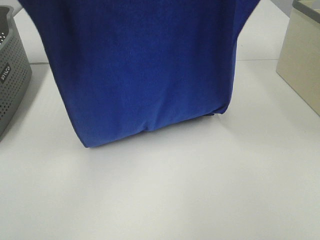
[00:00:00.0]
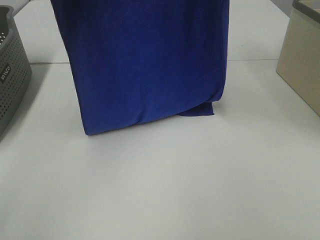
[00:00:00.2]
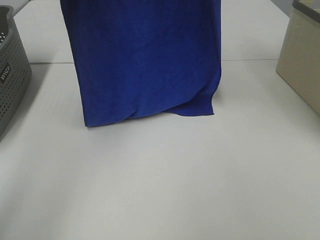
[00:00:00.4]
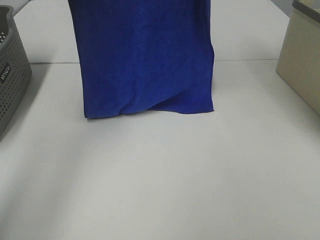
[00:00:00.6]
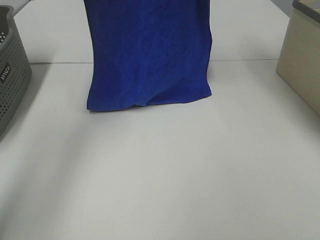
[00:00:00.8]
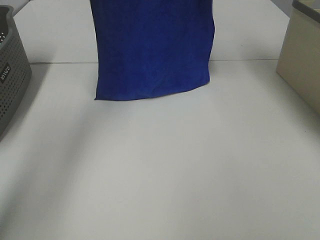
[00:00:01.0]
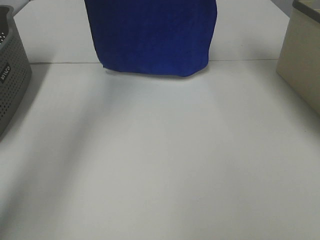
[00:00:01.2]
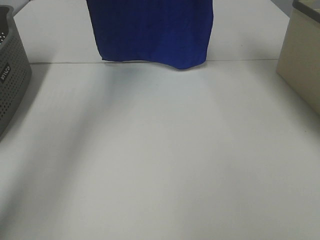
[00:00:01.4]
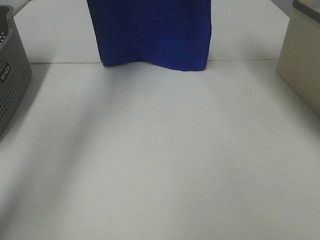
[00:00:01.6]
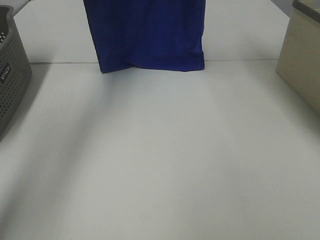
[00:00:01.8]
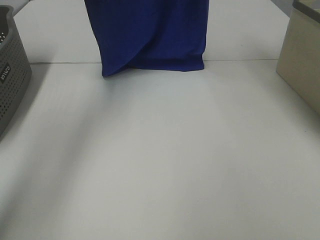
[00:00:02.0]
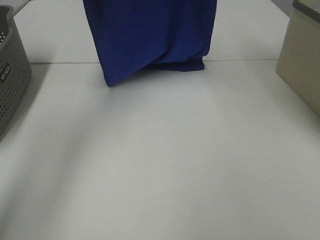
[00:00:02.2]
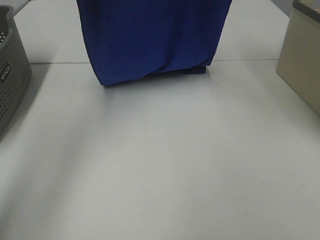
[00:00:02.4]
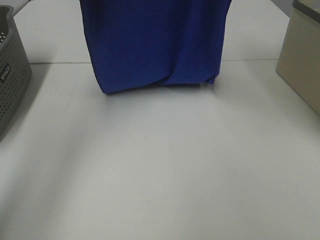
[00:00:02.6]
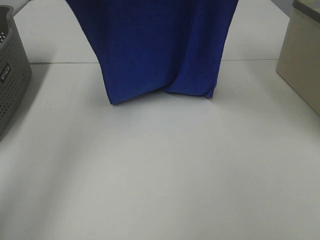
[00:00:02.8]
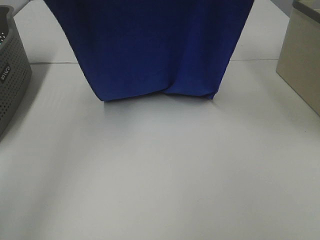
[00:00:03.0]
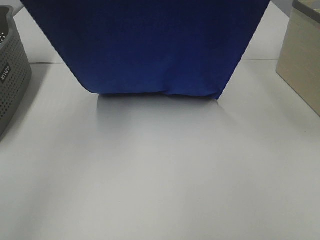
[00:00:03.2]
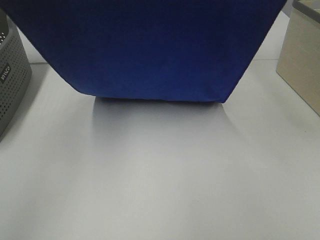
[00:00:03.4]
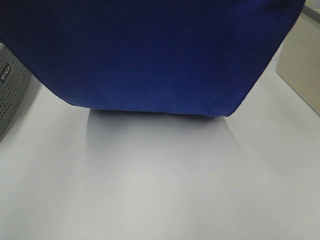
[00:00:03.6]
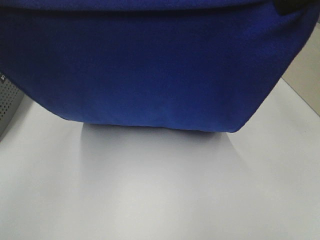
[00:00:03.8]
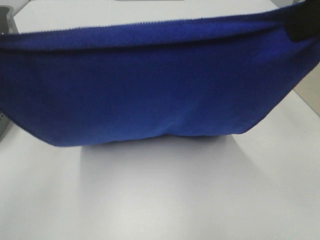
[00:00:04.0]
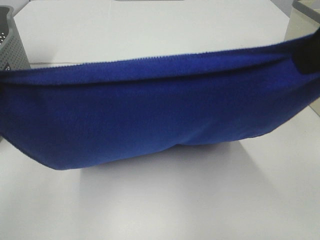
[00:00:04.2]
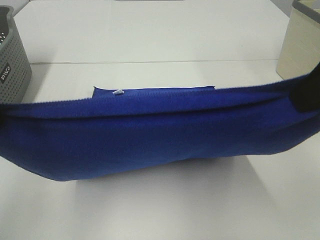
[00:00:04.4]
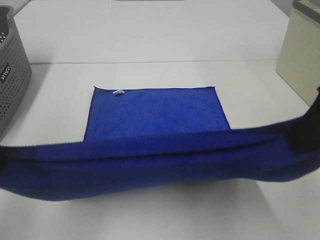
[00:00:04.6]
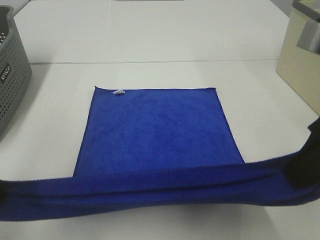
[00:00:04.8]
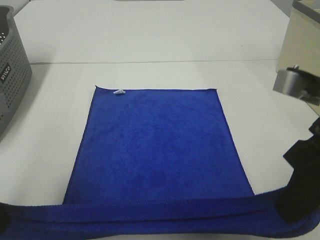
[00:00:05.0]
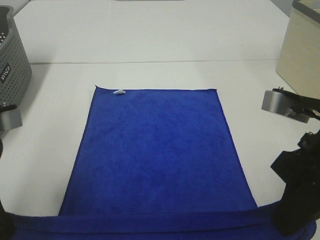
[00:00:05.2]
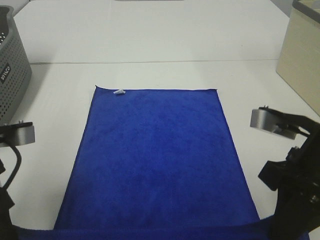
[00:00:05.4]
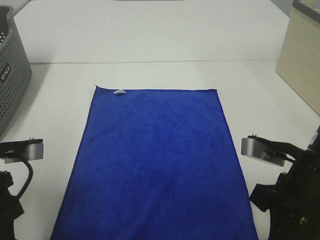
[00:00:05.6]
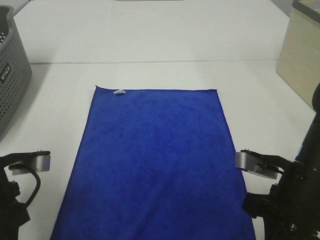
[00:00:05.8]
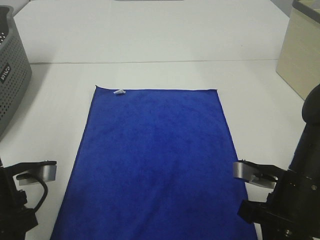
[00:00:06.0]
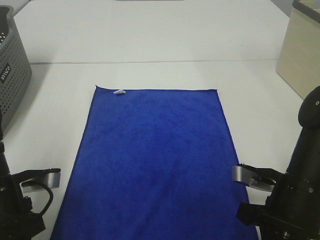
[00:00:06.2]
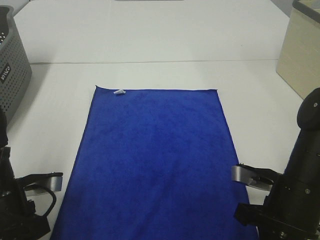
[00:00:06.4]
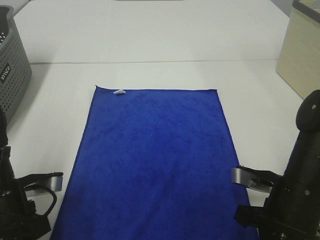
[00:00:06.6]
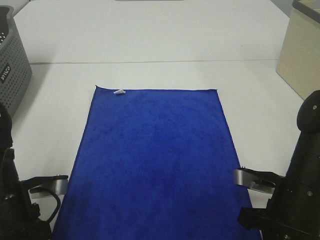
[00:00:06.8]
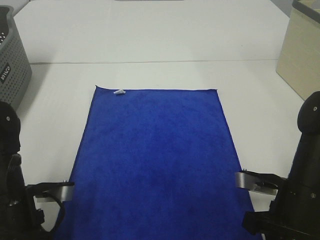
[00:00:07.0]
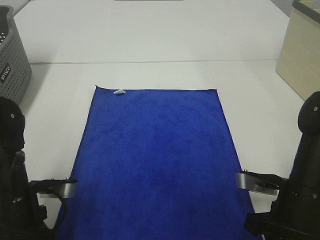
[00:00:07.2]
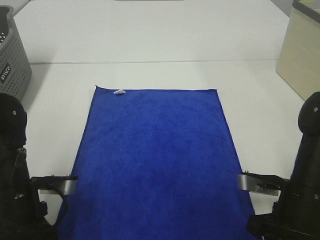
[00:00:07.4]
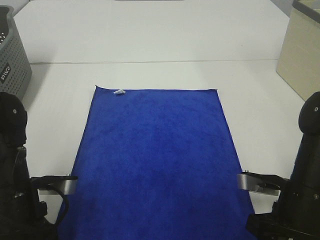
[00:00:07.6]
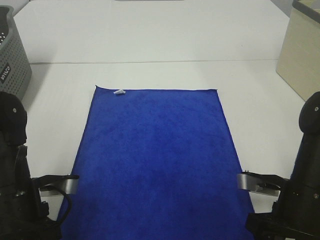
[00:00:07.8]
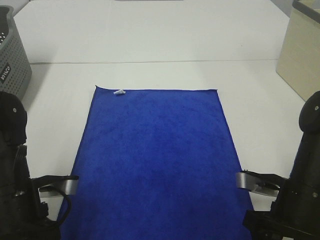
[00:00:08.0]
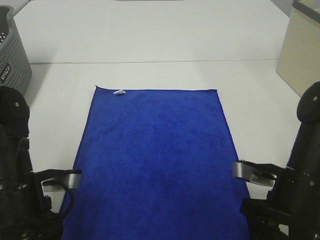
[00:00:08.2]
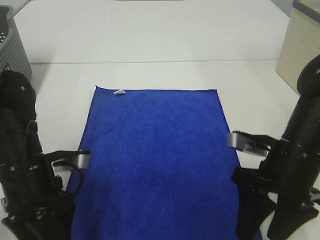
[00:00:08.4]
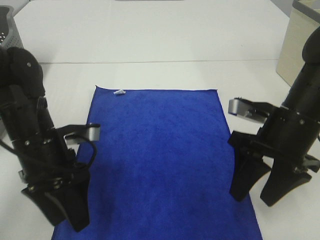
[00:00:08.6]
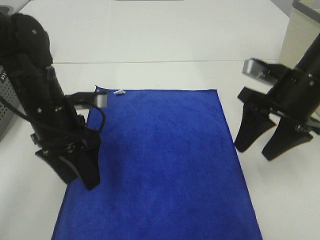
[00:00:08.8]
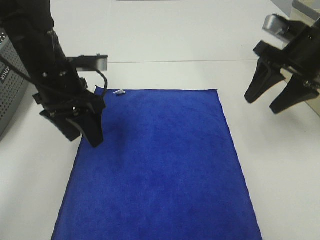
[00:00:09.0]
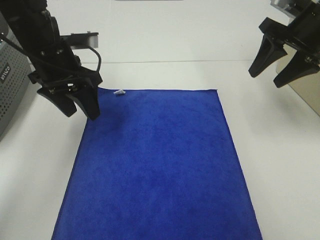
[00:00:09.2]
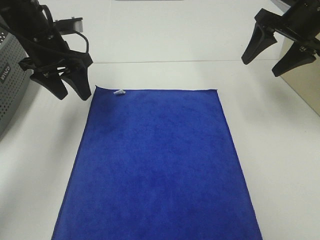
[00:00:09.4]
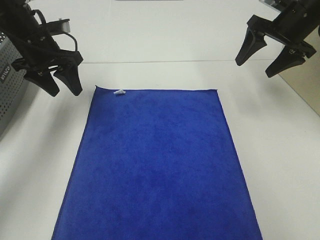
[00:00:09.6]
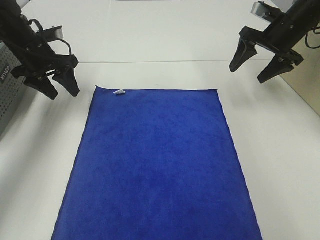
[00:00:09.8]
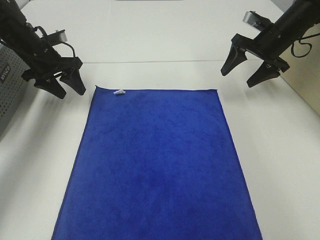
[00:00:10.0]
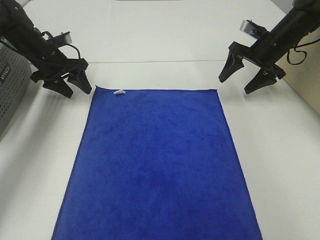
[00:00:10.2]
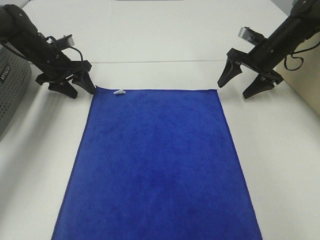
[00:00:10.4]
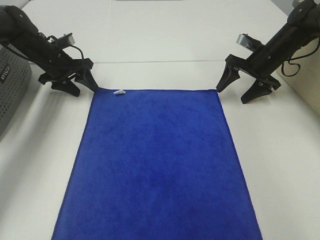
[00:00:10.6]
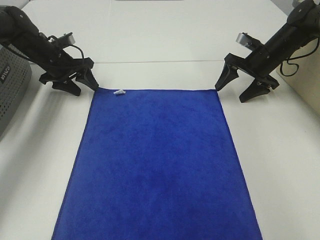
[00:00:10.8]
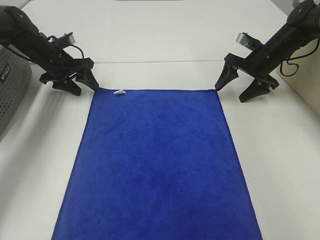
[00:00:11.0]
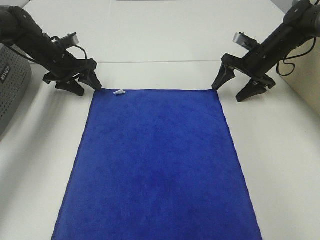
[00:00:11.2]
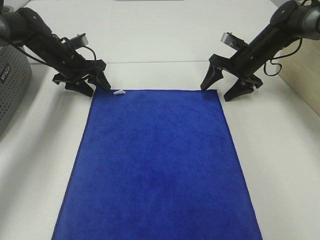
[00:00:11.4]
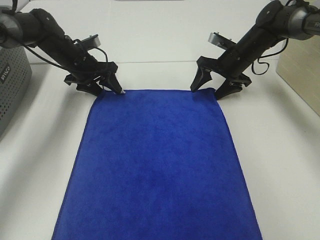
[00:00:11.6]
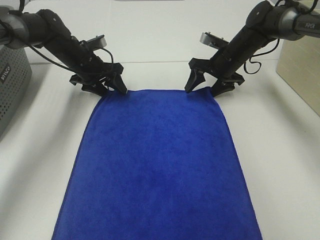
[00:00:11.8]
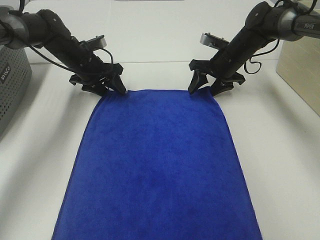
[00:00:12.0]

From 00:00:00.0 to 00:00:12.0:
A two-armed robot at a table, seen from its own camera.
Task of the whole recording: Remove the towel and place it.
Step, from 00:00:00.0 to 00:00:02.2: Left hand: spread the blue towel flat on the table.
Step, from 00:00:00.0 to 00:00:02.2: Right hand: spread the blue towel flat on the table.
Step, from 00:00:02.4 to 00:00:09.2: Left hand:adjust the blue towel.
Step, from 00:00:02.4 to 00:00:09.2: Right hand:adjust the blue towel.
From 00:00:00.0 to 00:00:01.6: Both grippers move forward, roughly 20 cm.
From 00:00:01.6 to 00:00:03.0: Both grippers move backward, approximately 15 cm.
From 00:00:03.0 to 00:00:04.4: Both grippers travel together backward and downward, approximately 20 cm.
From 00:00:04.4 to 00:00:06.0: Both grippers move downward, approximately 20 cm.
From 00:00:06.0 to 00:00:07.6: The right gripper opens up.
From 00:00:07.6 to 00:00:09.0: The grippers both shift forward and upward by some 20 cm. The left gripper opens.
From 00:00:09.0 to 00:00:10.4: The left gripper travels forward, to the left and downward by approximately 25 cm, while the right gripper travels forward and downward by roughly 20 cm.
From 00:00:10.4 to 00:00:12.0: The right gripper travels to the left by some 10 cm, while the left gripper shifts roughly 5 cm to the right.

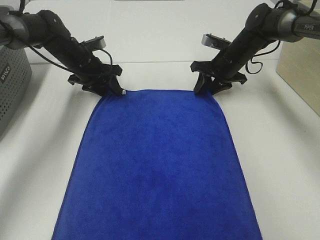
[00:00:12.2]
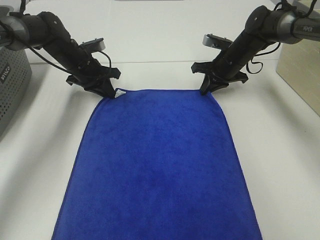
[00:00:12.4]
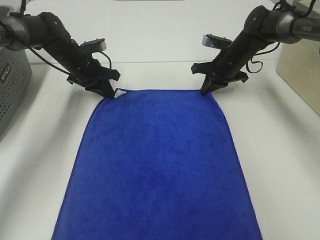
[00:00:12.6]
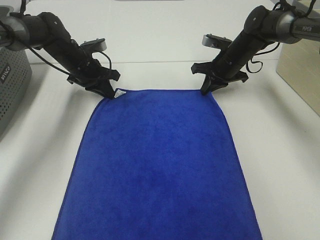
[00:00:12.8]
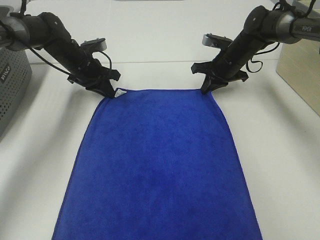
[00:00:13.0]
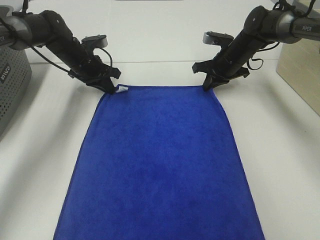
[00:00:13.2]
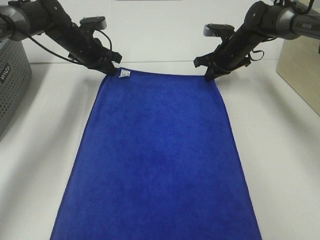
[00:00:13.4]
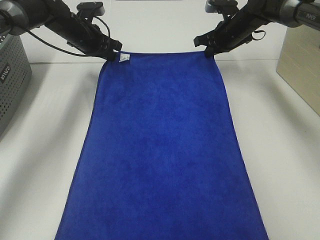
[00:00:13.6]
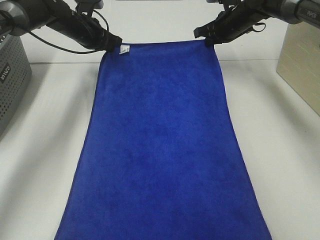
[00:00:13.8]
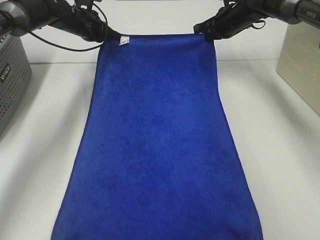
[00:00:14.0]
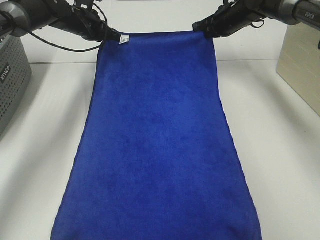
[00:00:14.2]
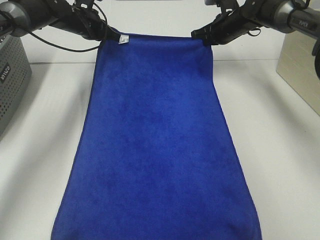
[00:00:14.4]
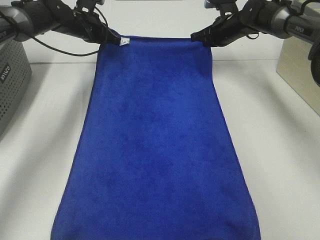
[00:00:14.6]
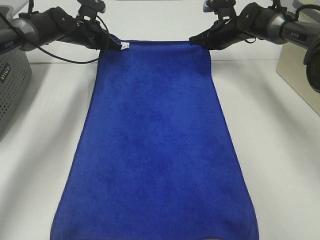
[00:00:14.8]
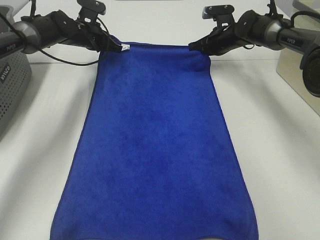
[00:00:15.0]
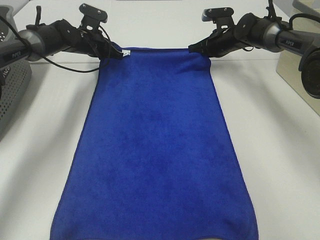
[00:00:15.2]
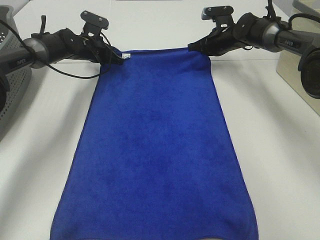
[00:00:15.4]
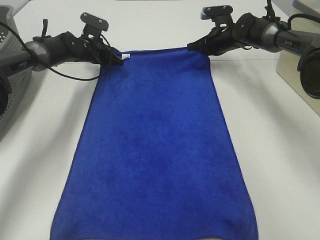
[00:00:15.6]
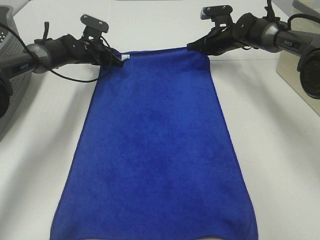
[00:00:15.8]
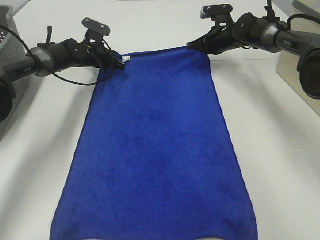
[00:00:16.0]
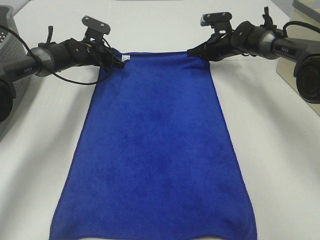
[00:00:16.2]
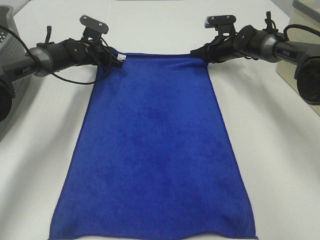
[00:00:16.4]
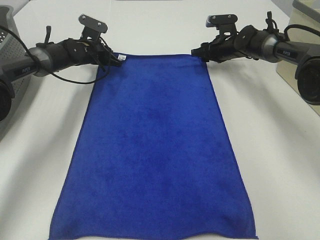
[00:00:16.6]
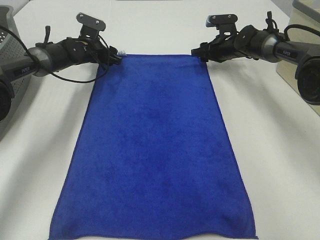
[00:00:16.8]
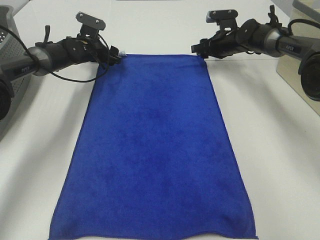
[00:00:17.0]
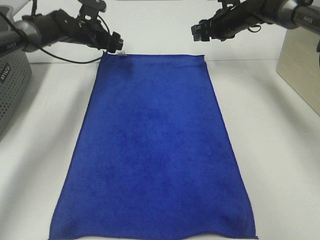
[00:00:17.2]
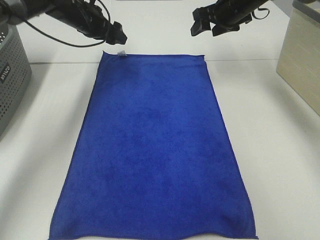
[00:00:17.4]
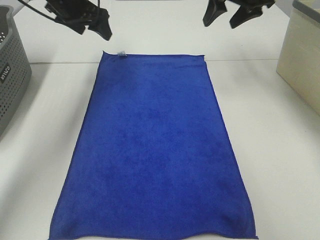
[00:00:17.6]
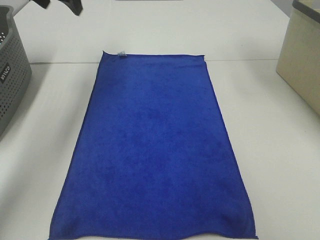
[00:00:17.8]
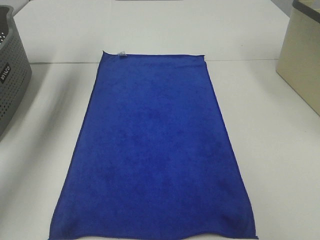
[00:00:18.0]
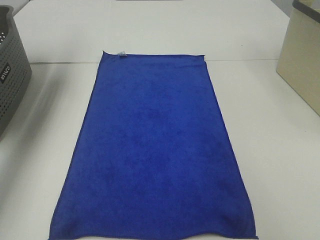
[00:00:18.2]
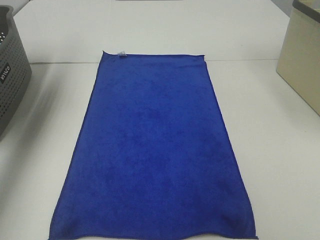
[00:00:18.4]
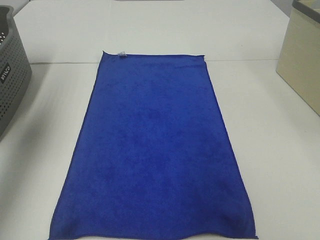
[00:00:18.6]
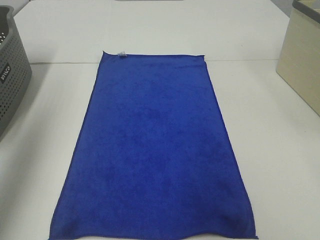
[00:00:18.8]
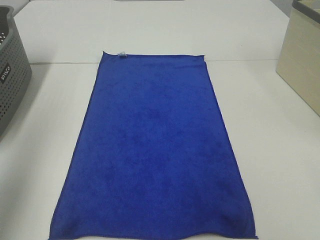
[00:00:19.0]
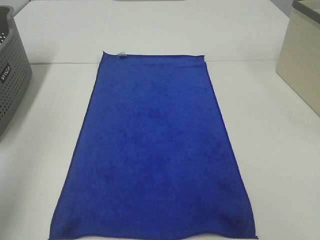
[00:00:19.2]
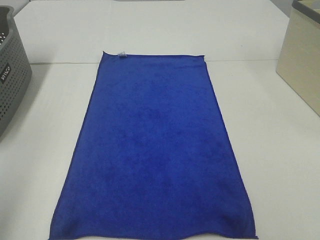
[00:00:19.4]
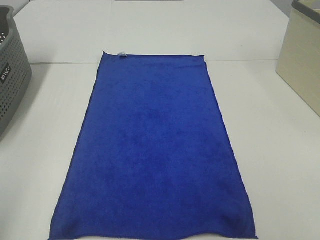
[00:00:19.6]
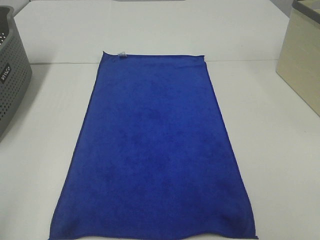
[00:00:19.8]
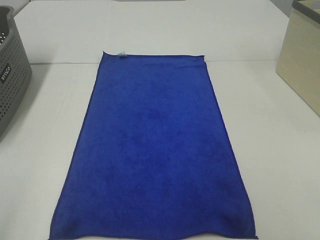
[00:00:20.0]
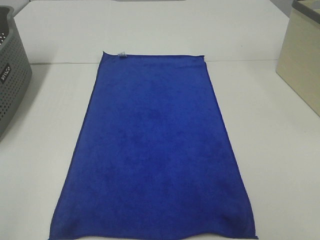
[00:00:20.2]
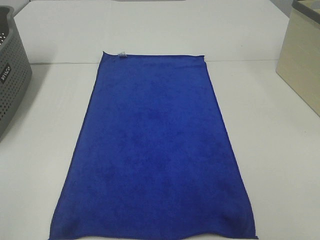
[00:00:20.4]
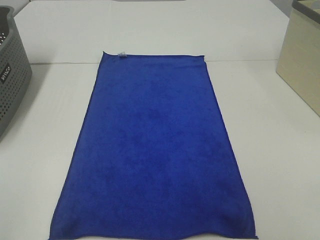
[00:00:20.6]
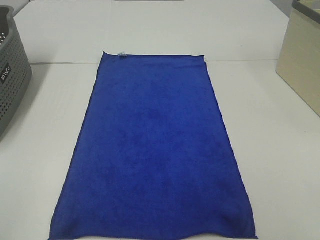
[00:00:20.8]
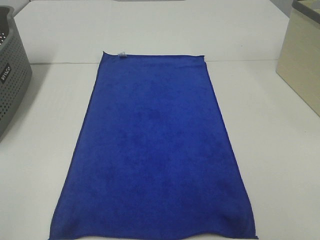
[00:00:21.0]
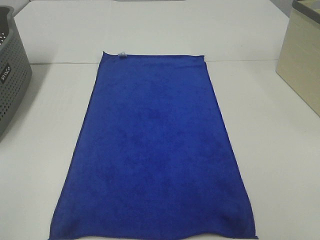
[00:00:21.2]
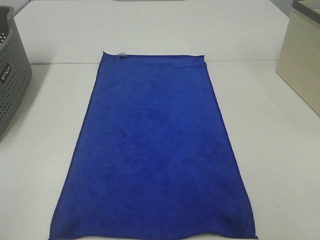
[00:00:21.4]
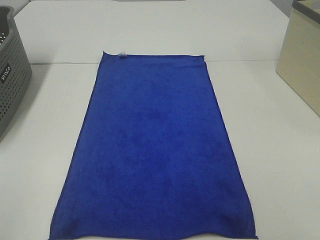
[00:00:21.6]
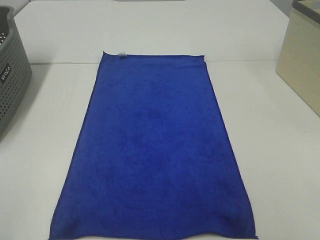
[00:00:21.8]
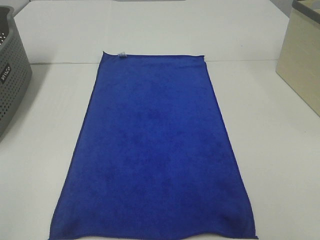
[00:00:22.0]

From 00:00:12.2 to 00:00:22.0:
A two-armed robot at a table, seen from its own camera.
Task of the whole recording: Remove the towel and place it.
From 00:00:12.2 to 00:00:13.6: Both grippers travel together upward, roughly 5 cm. The left gripper closes. The right gripper closes up.
From 00:00:13.6 to 00:00:15.0: The right gripper shifts by about 5 cm.
From 00:00:15.0 to 00:00:16.4: The left gripper travels downward by about 5 cm. The right gripper opens its fingers.
From 00:00:16.4 to 00:00:17.8: Both grippers travel together upward and backward, roughly 30 cm. The right gripper opens up. The left gripper opens up.
From 00:00:17.8 to 00:00:19.2: Both grippers travel together backward, some 40 cm.
From 00:00:19.2 to 00:00:20.6: The left gripper heads backward and downward, covering approximately 15 cm.
From 00:00:20.6 to 00:00:22.0: Neither gripper changes place.
